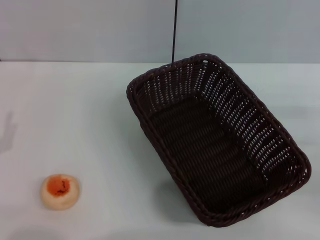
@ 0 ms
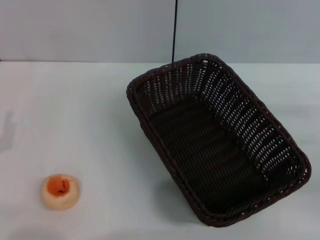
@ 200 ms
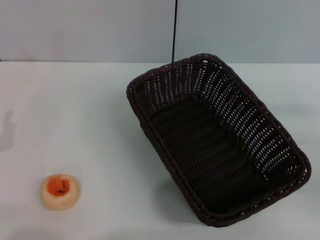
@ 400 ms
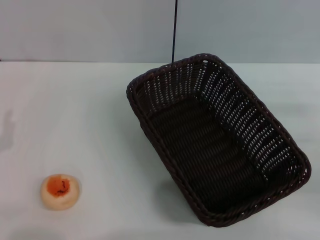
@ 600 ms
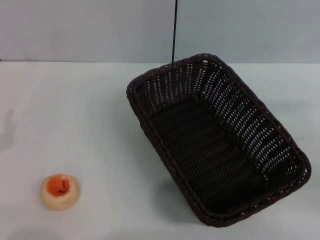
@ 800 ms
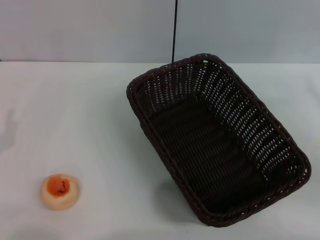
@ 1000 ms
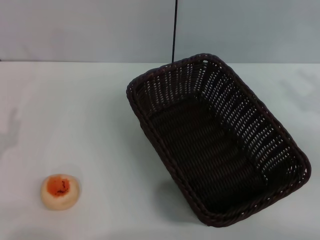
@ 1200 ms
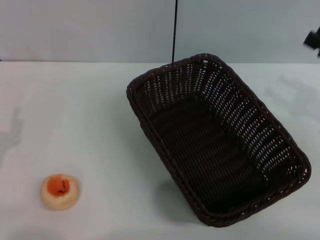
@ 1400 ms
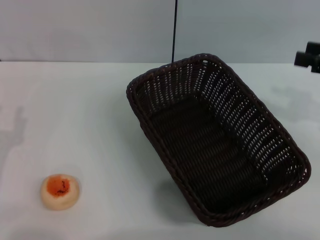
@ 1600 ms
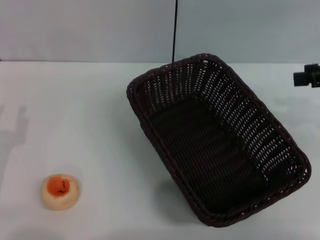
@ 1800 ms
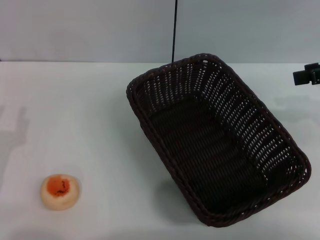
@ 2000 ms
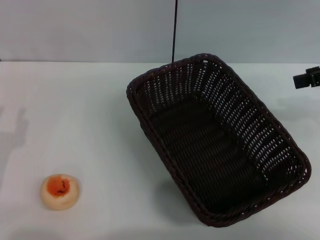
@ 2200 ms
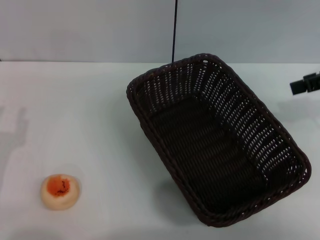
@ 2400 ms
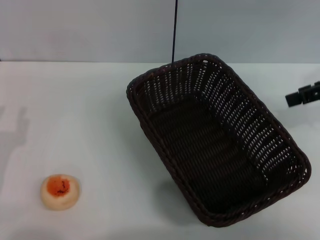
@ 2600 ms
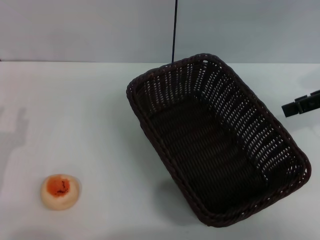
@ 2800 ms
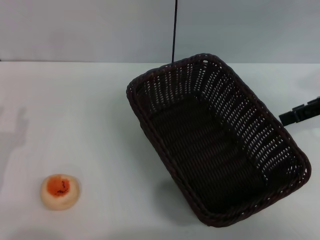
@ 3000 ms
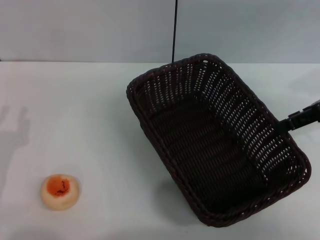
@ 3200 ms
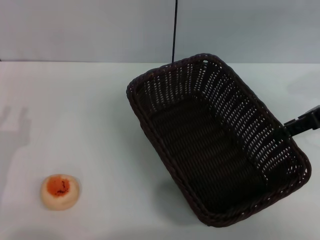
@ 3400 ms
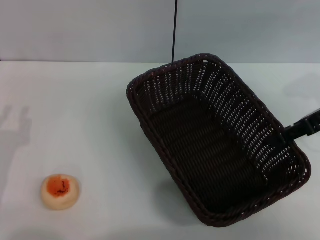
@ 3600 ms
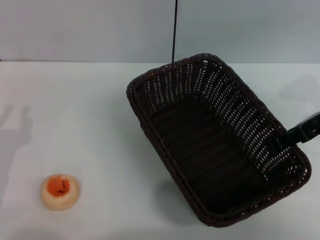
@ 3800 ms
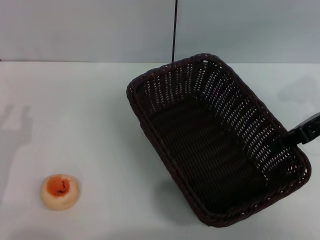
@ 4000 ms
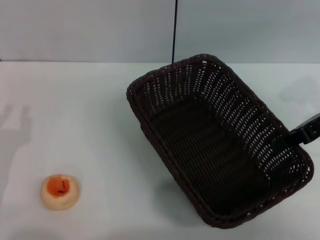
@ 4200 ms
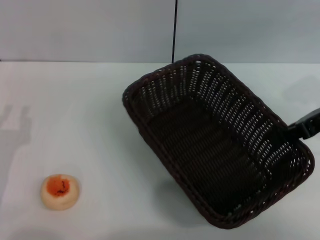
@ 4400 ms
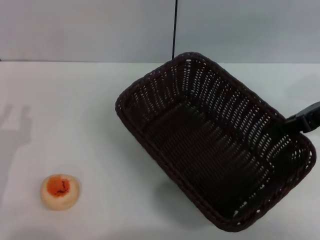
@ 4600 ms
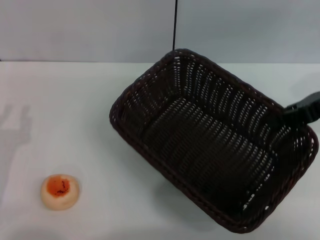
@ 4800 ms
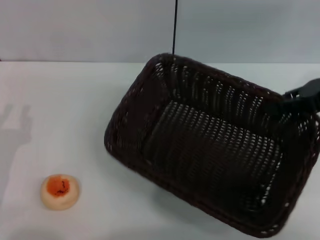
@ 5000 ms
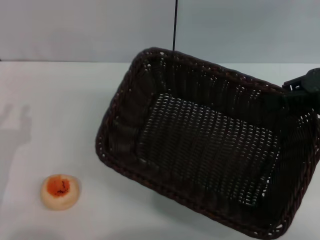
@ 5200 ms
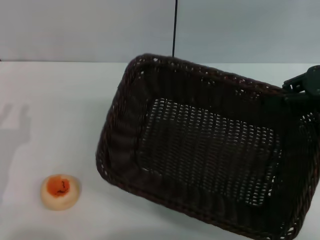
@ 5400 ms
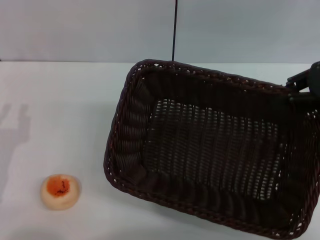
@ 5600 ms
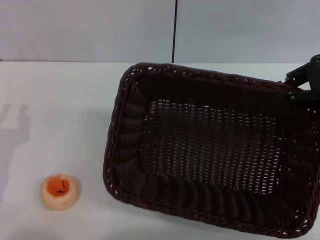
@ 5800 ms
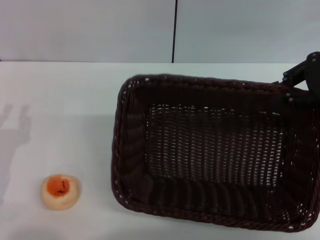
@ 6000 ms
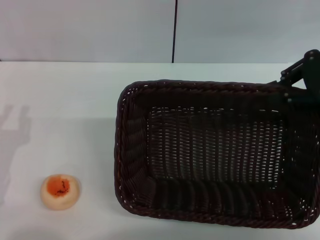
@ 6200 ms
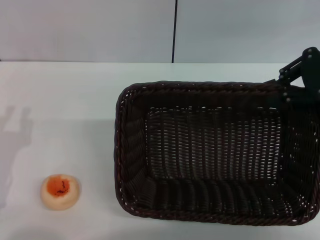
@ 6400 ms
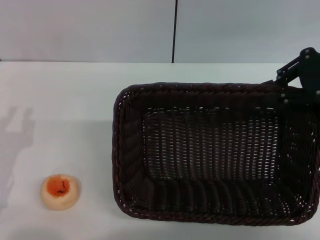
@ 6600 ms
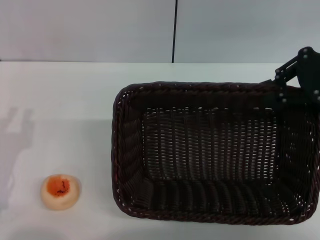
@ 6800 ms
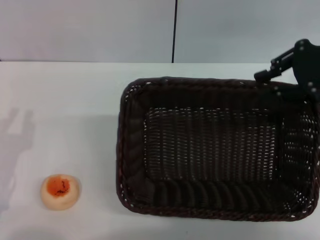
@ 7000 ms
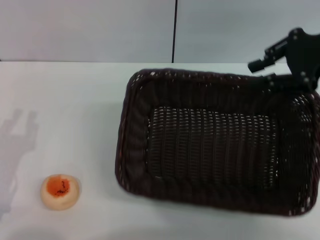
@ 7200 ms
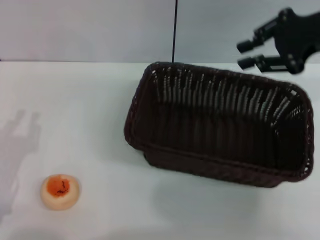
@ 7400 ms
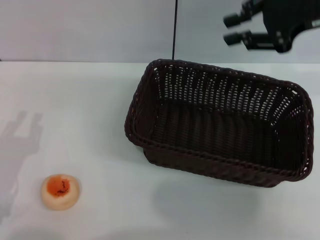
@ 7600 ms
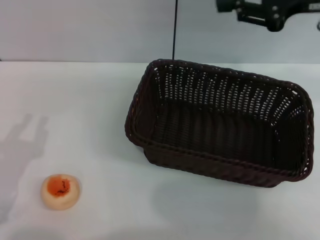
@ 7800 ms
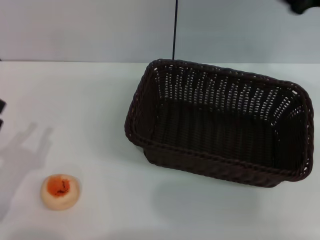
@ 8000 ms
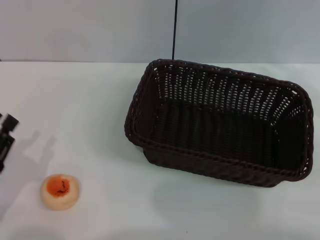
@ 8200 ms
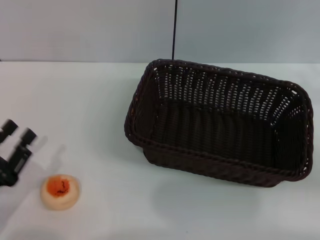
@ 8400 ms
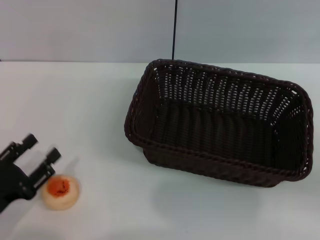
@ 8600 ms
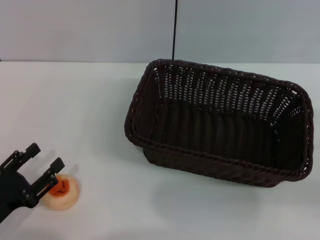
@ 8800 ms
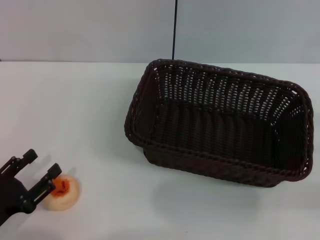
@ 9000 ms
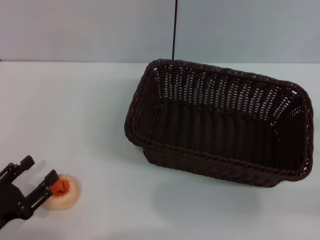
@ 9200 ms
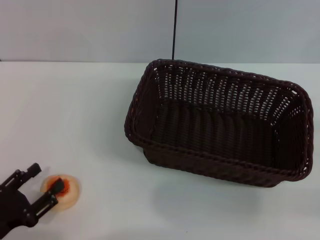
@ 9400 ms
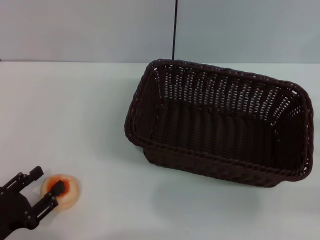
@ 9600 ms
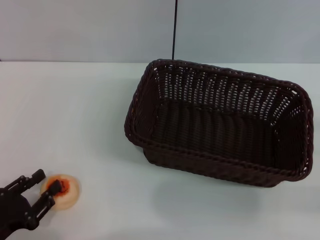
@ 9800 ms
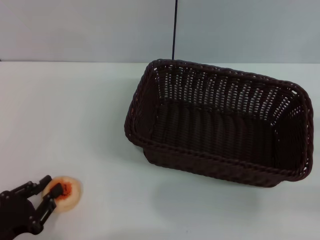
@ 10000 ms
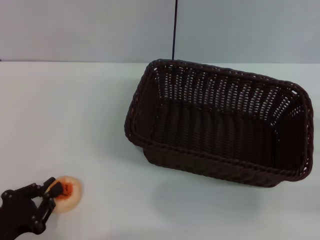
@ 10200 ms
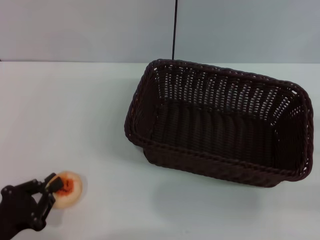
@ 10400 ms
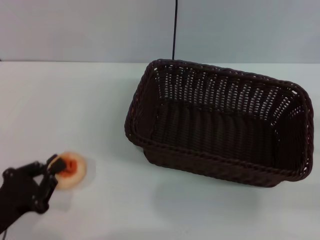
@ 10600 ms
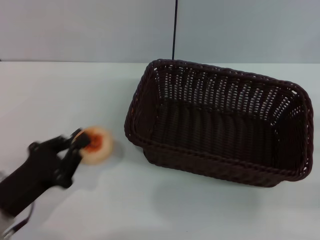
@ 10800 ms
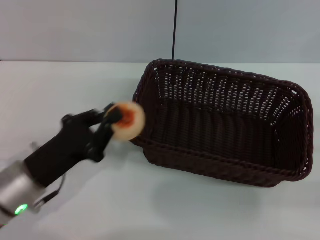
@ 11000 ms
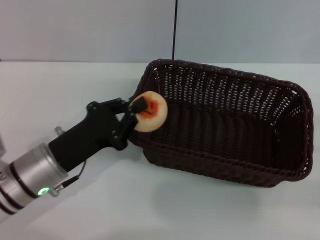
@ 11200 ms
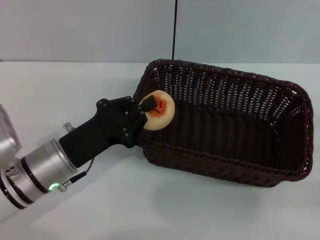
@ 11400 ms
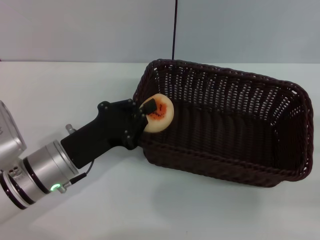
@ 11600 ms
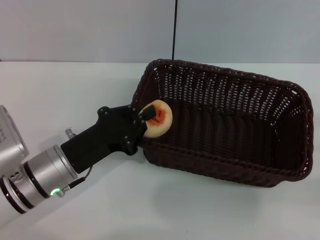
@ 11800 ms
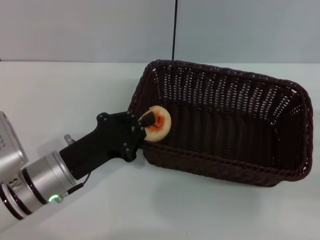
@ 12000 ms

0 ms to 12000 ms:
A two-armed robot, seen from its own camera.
Step, 0 ms to 7200 ms: Move the basket to the center of view with the right gripper.
Step, 7600 ms to 10600 ms: Pick up the egg yolk pastry with the left gripper.
0 ms to 1600 ms: The right gripper moves upward and forward, approximately 15 cm.
1600 ms to 3000 ms: The right gripper moves roughly 5 cm.
3000 ms to 4400 ms: The right gripper closes its fingers.
4400 ms to 6000 ms: The right gripper moves upward, some 5 cm.
6000 ms to 7600 ms: The right gripper heads to the left, covering roughly 5 cm.
7600 ms to 9000 ms: The left gripper opens its fingers. Meanwhile the right gripper travels downward, backward and to the right by some 30 cm, and opens its fingers.
9000 ms to 10400 ms: The left gripper closes.
10400 ms to 12000 ms: The left gripper heads forward and to the right, covering about 15 cm.

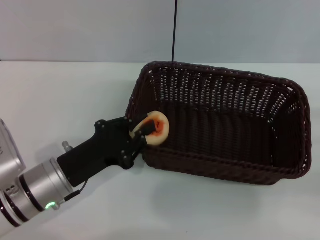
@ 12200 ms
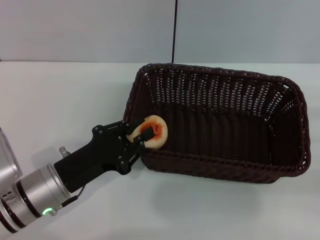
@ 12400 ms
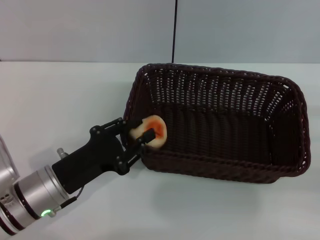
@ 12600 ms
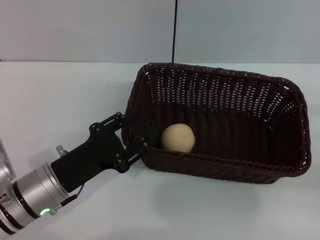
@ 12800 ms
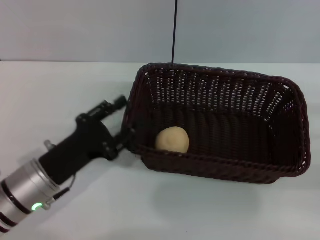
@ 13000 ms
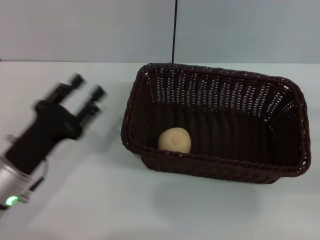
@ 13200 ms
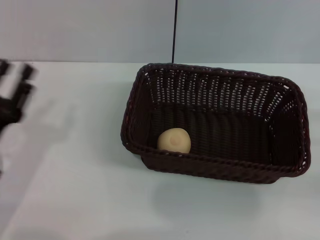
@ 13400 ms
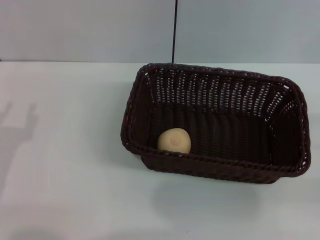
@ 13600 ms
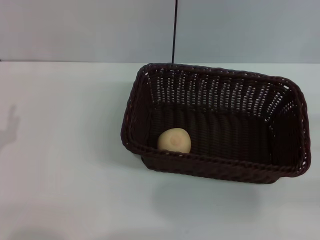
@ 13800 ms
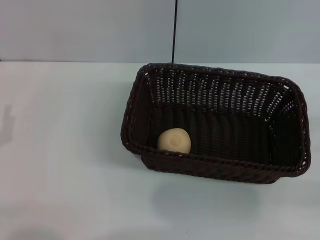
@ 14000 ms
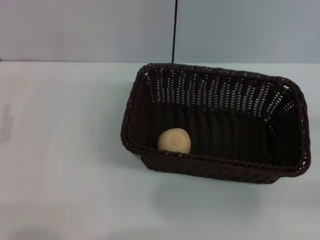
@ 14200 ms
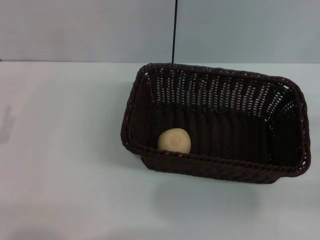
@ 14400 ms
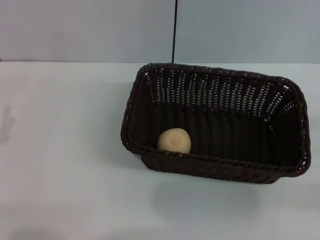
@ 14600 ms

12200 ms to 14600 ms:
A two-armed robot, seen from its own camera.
12200 ms to 13400 ms: The left gripper goes roughly 10 cm to the left, and opens its fingers.
13400 ms to 14600 ms: The left gripper heads to the left, covering roughly 5 cm.
